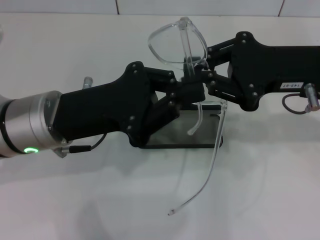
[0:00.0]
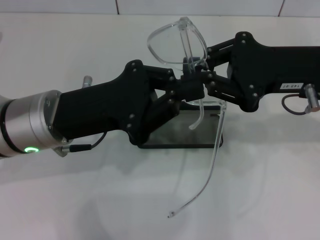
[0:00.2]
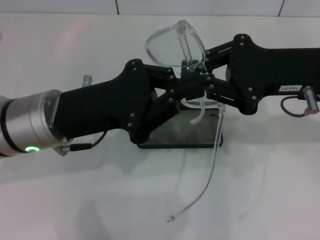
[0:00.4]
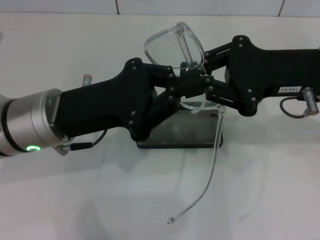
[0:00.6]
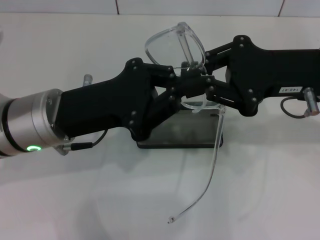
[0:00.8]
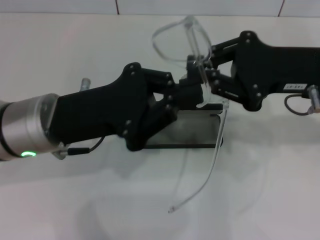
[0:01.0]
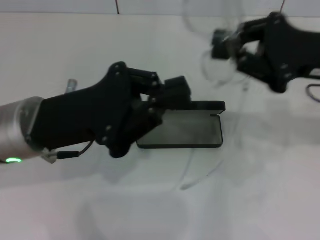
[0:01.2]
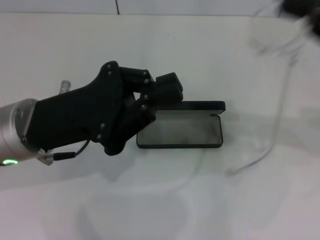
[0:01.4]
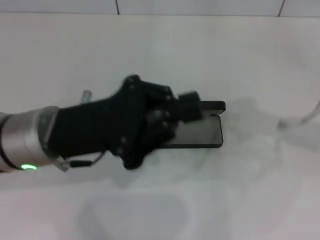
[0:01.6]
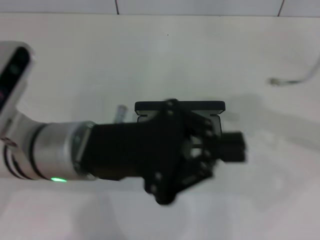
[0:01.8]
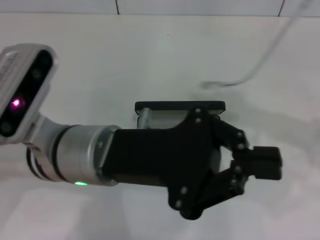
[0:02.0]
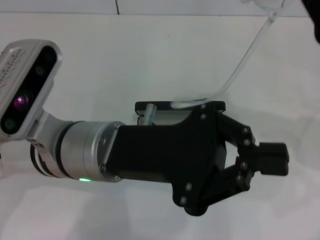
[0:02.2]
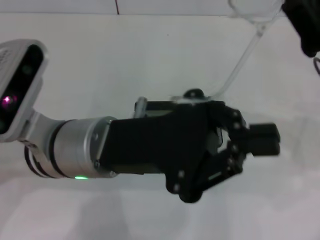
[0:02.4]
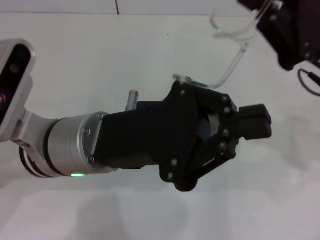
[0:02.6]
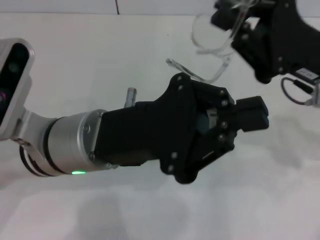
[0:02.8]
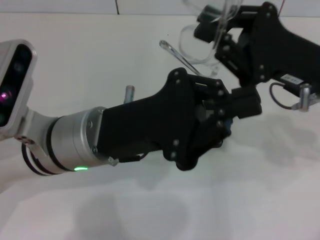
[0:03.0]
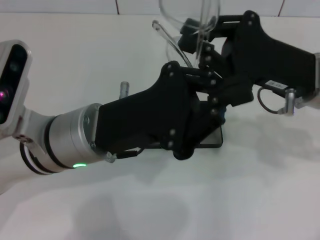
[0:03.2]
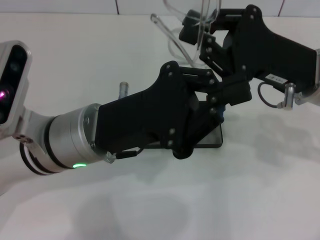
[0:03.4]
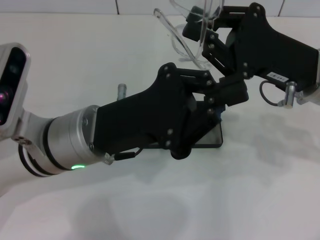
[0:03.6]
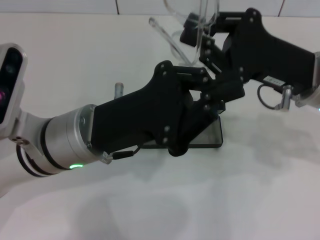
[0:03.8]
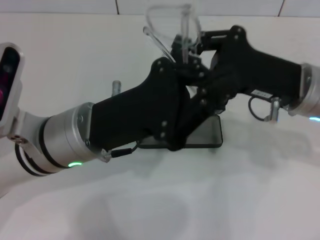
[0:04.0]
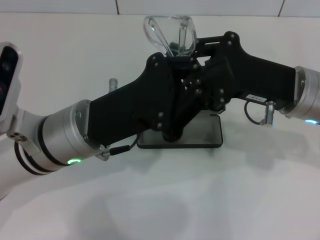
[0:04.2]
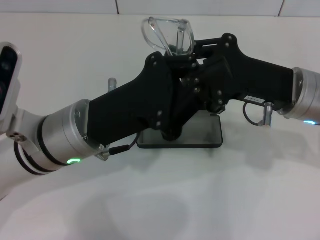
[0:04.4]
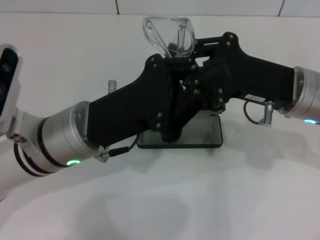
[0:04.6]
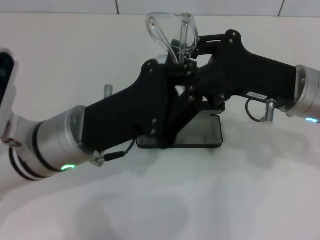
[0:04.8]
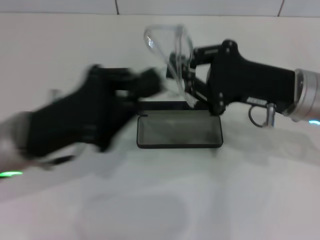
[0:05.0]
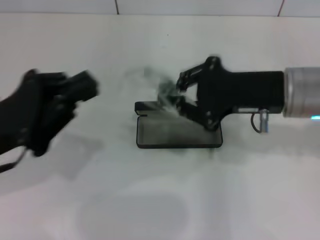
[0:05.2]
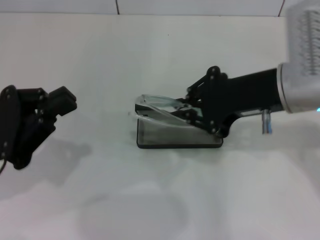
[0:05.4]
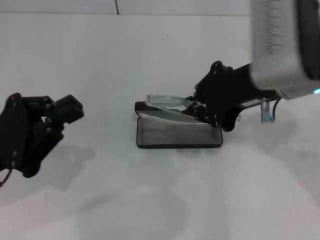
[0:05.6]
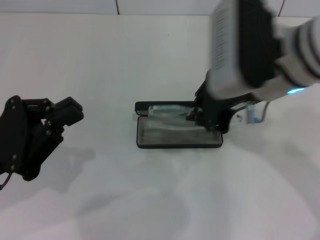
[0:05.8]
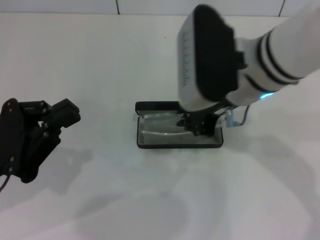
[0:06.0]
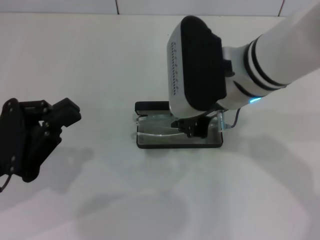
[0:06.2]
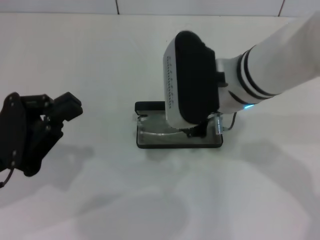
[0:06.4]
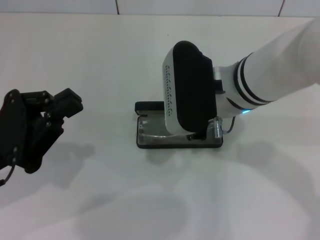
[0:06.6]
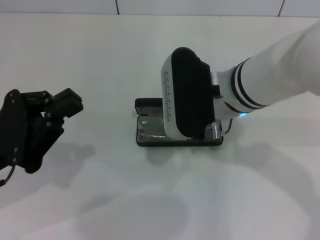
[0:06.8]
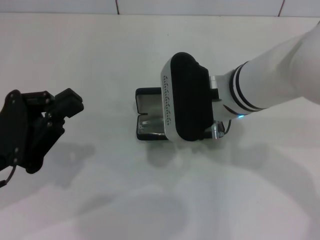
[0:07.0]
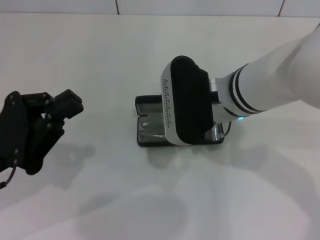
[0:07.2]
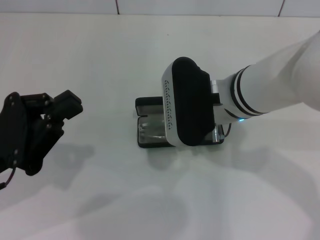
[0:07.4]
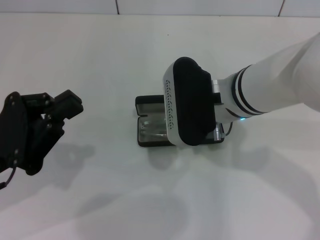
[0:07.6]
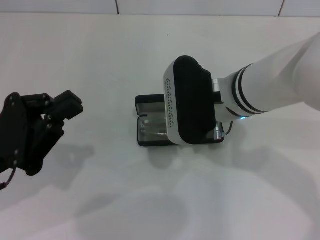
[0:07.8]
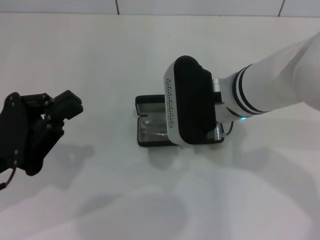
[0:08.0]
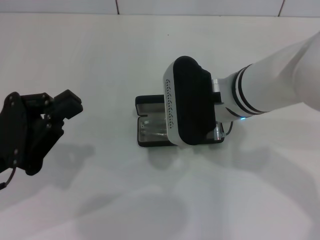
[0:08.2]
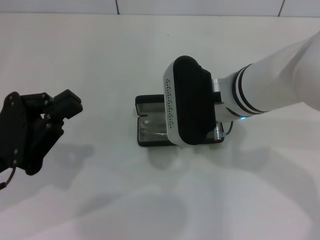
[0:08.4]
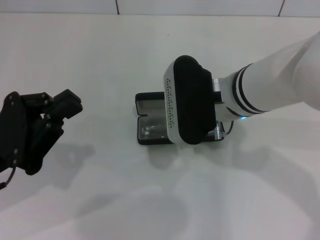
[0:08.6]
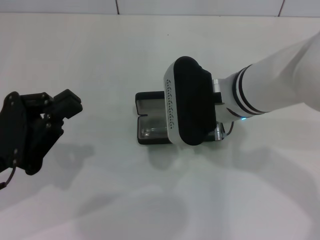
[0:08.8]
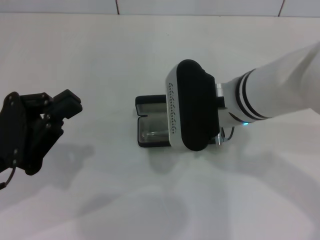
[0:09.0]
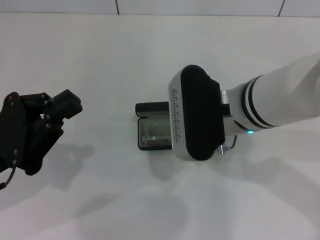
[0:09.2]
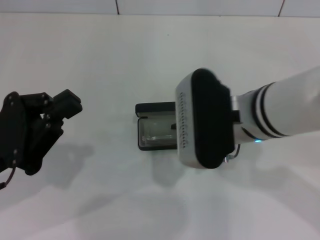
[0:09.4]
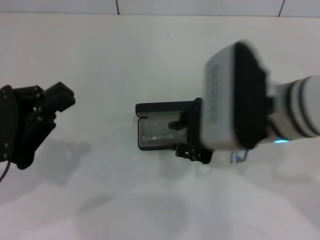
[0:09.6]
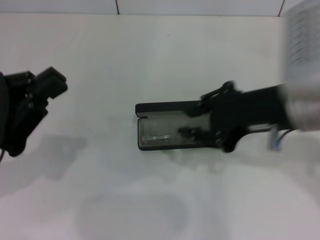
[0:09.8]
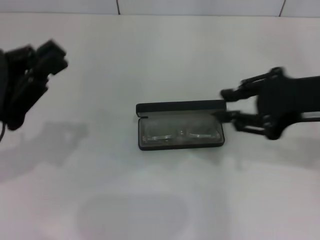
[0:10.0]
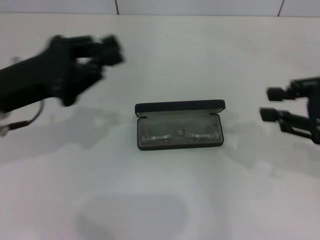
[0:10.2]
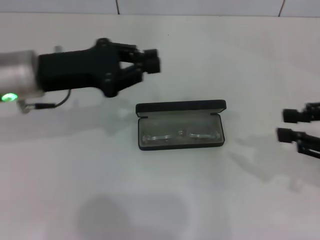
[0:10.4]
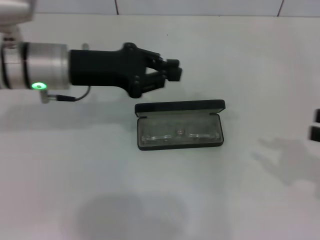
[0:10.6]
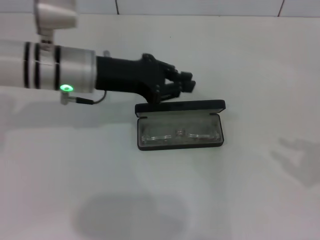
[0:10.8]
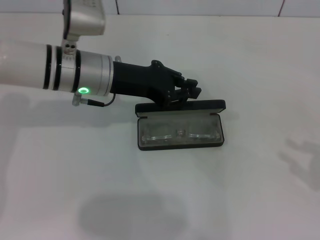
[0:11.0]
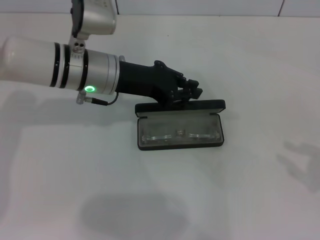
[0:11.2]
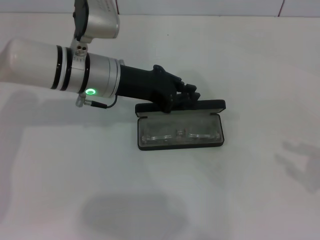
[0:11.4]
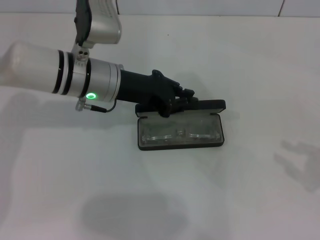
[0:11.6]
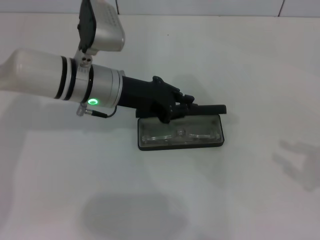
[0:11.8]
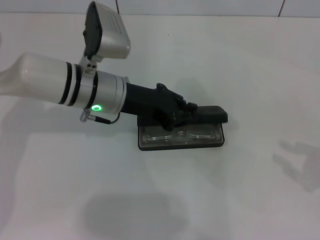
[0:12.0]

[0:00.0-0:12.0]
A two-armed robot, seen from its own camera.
Step, 0:00.0 to 0:04.0: Fold the frame with your left hand.
Step, 0:04.2 to 0:09.4: Put the glasses into the case with your right hand.
0:00.0 to 0:01.6: The right gripper is displaced to the right by about 10 cm.
0:01.6 to 0:03.0: The left gripper moves to the right, roughly 5 cm. The right gripper moves to the left and downward, some 10 cm.
0:04.4 to 0:06.0: The right gripper is displaced to the left and upward by approximately 10 cm; the left gripper goes approximately 15 cm to the left.
0:06.0 to 0:07.6: The right gripper shifts some 5 cm downward.
0:07.6 to 0:09.0: Neither gripper changes place.
0:09.0 to 0:10.4: The left gripper moves forward and to the right, about 15 cm. The right gripper is displaced to the right by about 25 cm.
0:10.4 to 0:12.0: The right gripper heads to the right and downward, covering roughly 10 cm. Meanwhile the left gripper heads to the right, covering about 10 cm.

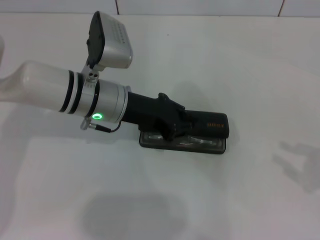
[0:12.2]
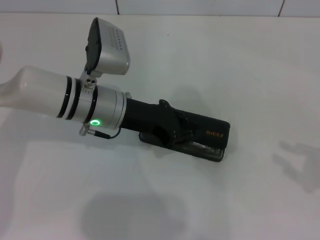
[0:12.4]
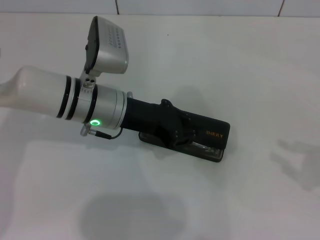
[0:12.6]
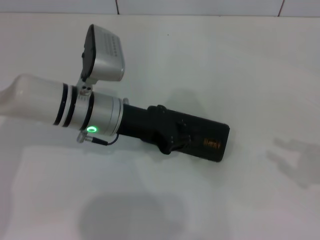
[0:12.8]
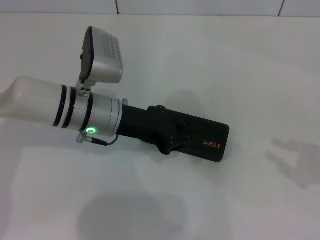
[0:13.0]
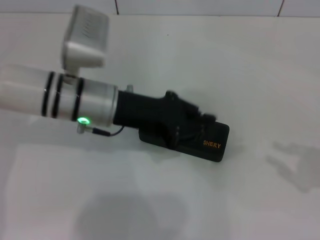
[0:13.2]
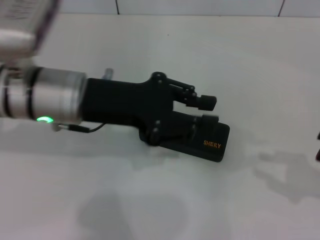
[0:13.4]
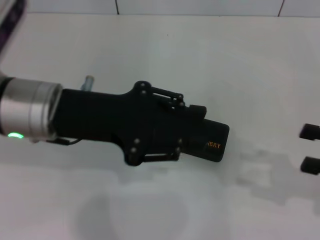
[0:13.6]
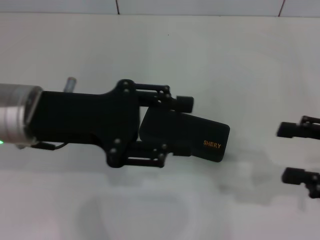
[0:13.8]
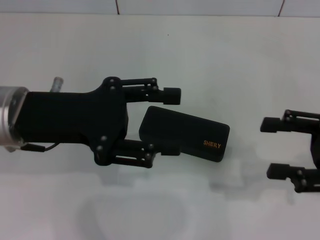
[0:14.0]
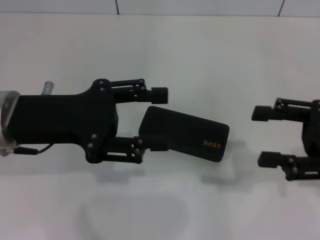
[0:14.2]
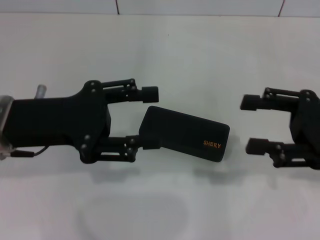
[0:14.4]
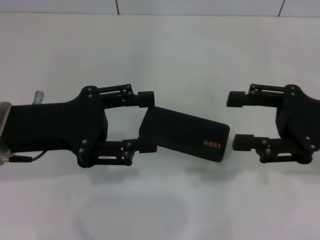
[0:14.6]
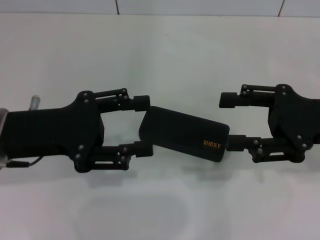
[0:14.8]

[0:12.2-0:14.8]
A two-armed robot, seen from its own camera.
0:12.2 to 0:13.4: The left gripper is displaced upward and backward by roughly 10 cm.
0:13.4 to 0:14.8: The left gripper moves to the left, about 10 cm, and opens. Meanwhile the right gripper travels to the left and forward by approximately 15 cm, and opens.

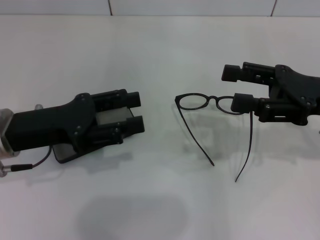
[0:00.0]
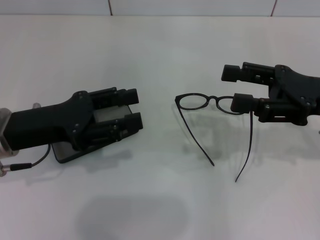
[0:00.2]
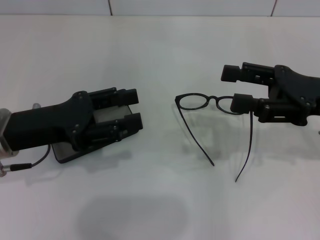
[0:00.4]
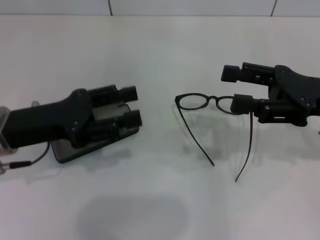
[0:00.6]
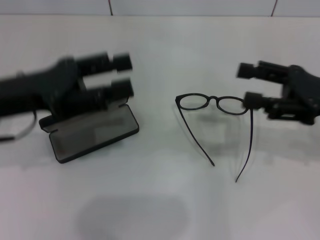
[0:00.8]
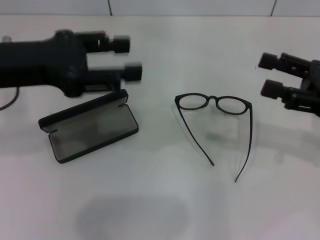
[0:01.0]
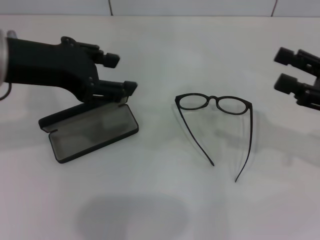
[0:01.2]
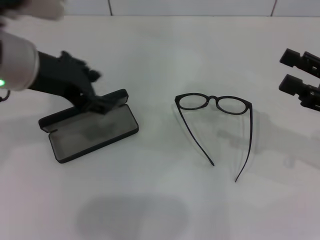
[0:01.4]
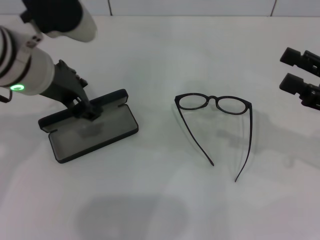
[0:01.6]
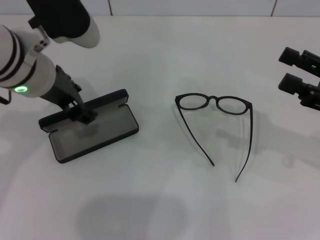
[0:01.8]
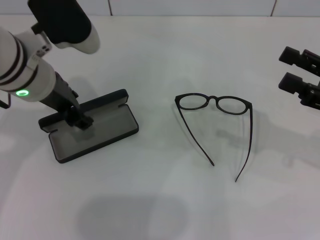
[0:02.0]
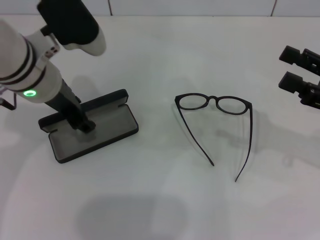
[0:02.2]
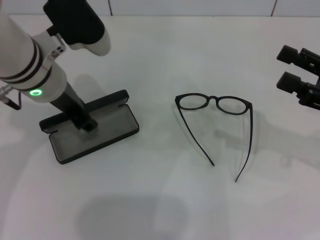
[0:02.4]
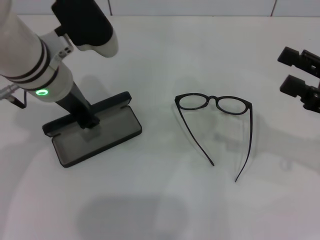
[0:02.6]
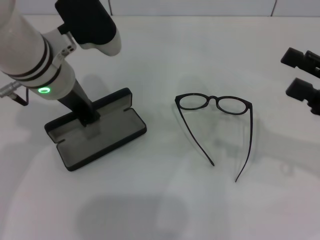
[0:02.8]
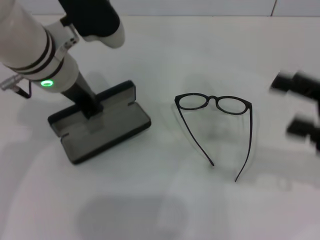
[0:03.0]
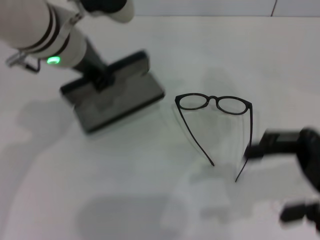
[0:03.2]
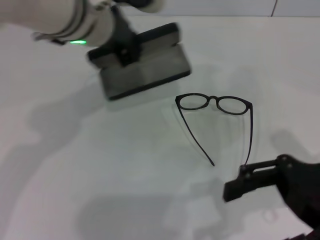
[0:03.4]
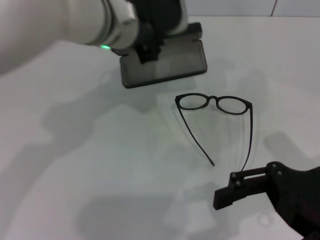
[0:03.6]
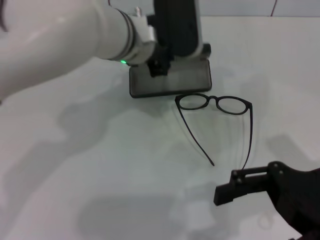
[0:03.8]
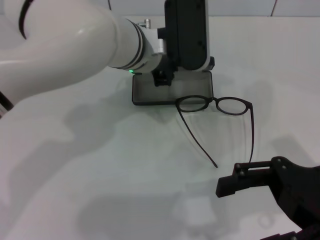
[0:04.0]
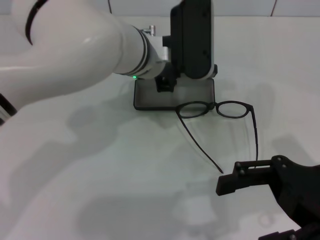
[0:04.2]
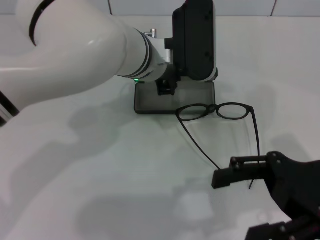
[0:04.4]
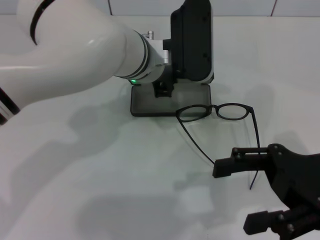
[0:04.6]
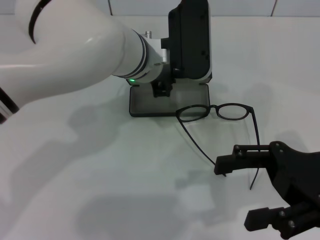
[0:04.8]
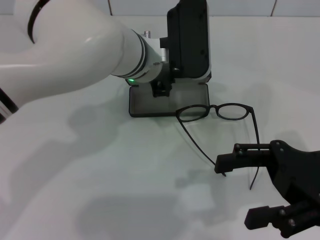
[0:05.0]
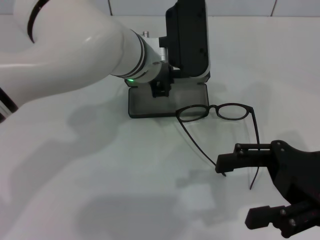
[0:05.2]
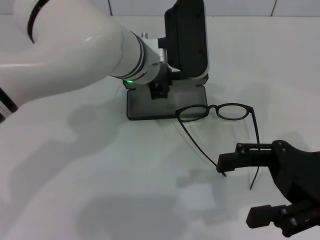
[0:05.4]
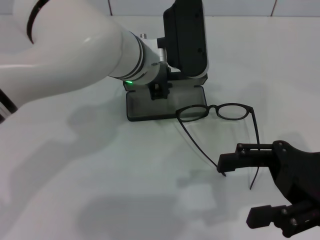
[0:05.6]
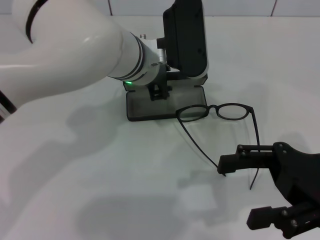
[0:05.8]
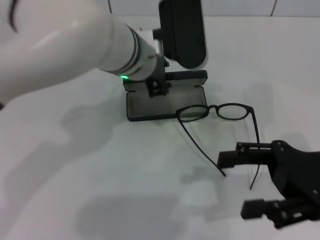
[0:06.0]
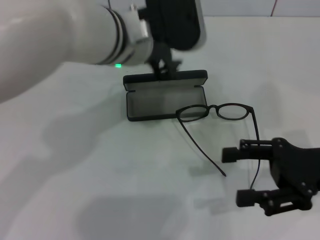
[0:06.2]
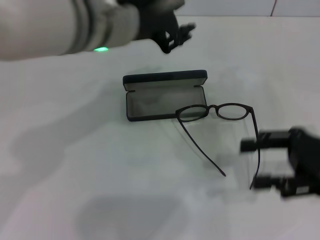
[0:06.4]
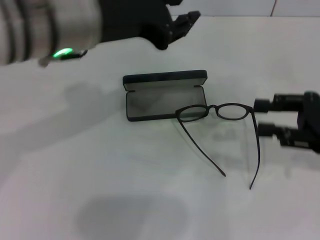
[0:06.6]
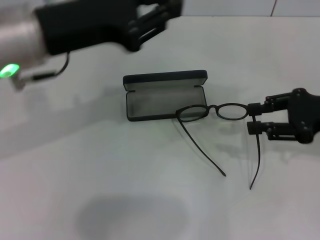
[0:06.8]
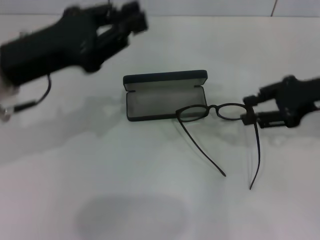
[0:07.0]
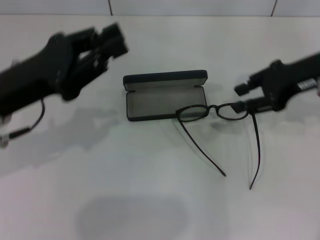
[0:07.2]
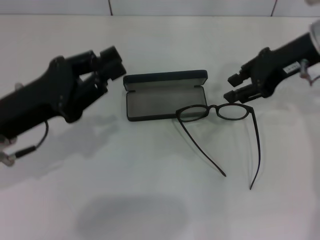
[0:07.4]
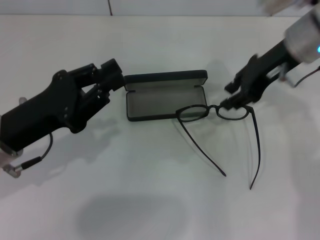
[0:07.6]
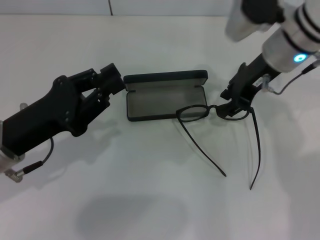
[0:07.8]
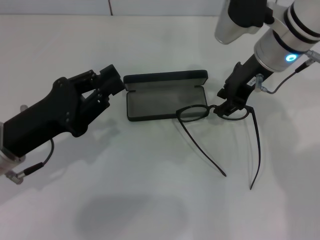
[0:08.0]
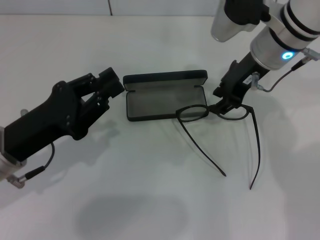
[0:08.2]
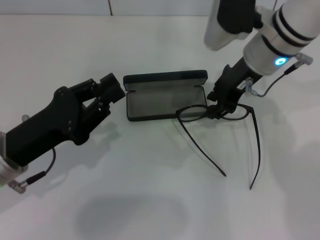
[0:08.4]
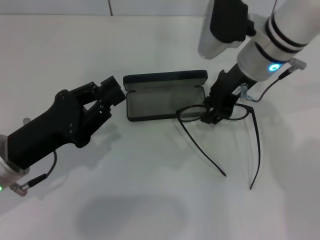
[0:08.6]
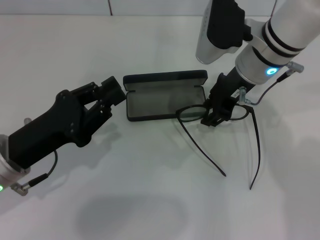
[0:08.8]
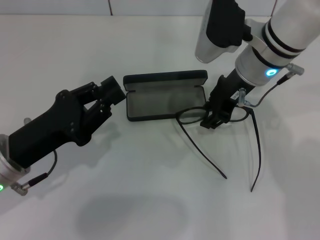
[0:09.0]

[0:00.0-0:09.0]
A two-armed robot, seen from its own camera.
Step, 0:00.0 to 0:02.8: Grab the glasses case with your left hand.
Step, 0:03.0 to 0:05.4: Place the glasses case in the center of the table with your left hand.
0:00.0 to 0:01.6: The left gripper is displaced upward, to the right and forward by roughly 15 cm. The right gripper goes some 5 cm to the right.
0:01.6 to 0:03.0: The left gripper closes its fingers.
0:03.0 to 0:04.4: The right gripper heads to the left, covering about 5 cm; the left gripper is displaced to the right by about 10 cm.
0:06.0 to 0:07.6: The left gripper goes approximately 20 cm to the left and backward, while the right gripper goes roughly 20 cm forward, upward and to the left, and closes up.
0:07.6 to 0:09.0: The right gripper heads to the left, covering roughly 5 cm.
